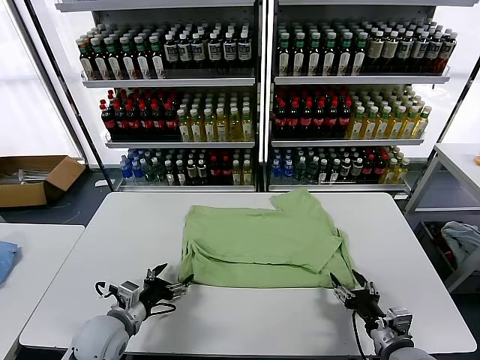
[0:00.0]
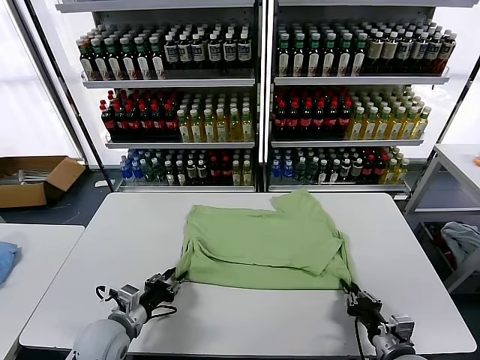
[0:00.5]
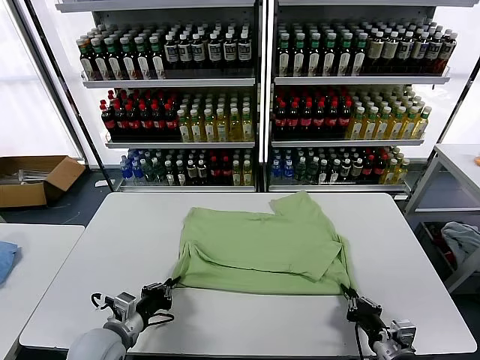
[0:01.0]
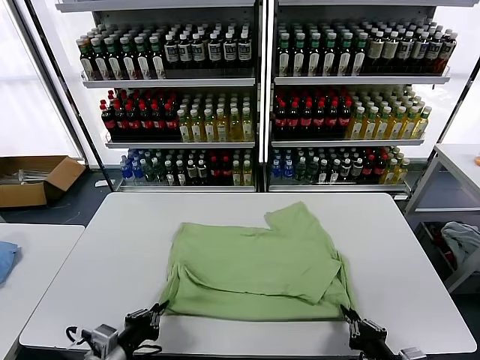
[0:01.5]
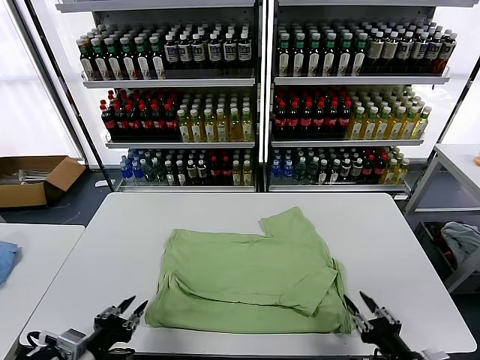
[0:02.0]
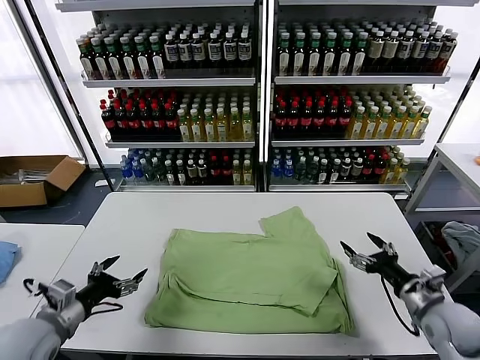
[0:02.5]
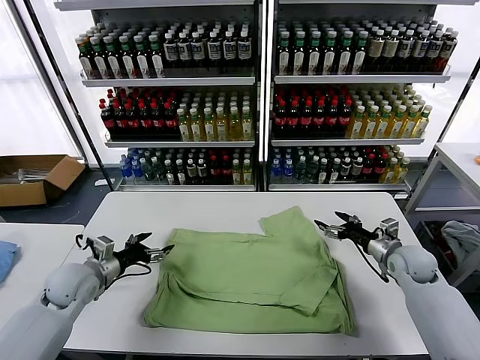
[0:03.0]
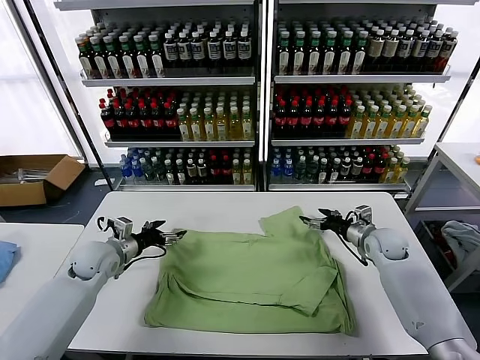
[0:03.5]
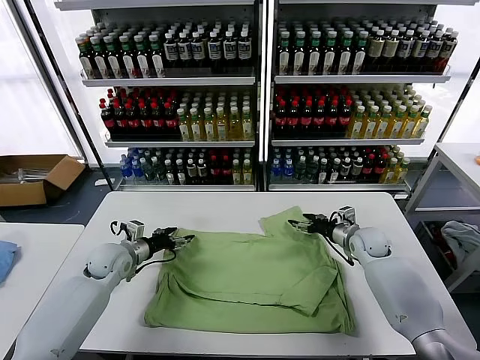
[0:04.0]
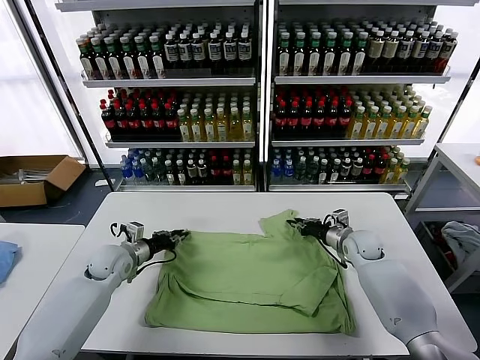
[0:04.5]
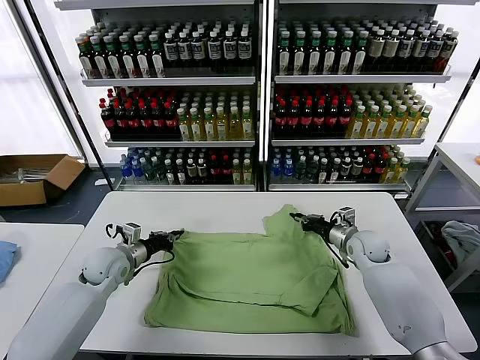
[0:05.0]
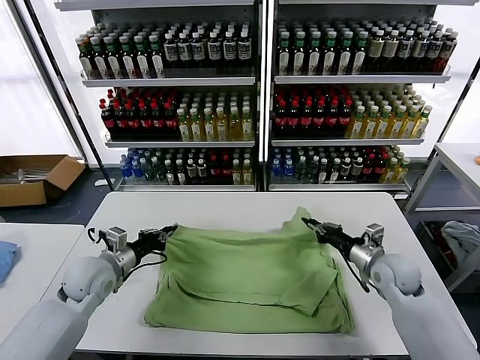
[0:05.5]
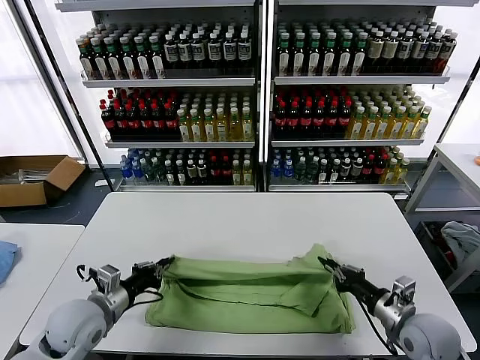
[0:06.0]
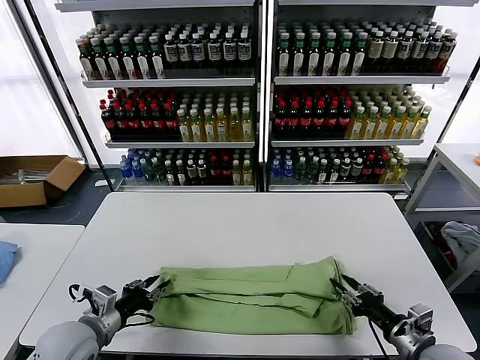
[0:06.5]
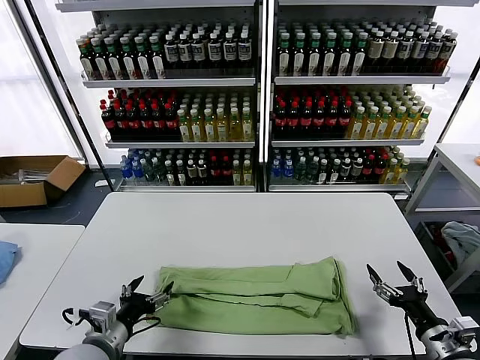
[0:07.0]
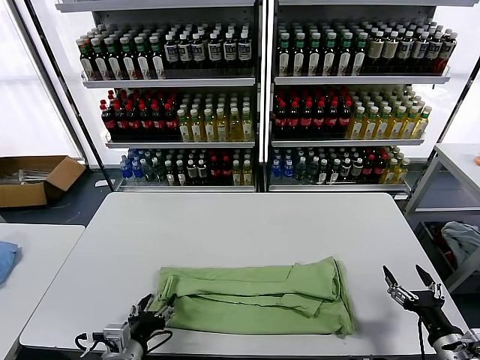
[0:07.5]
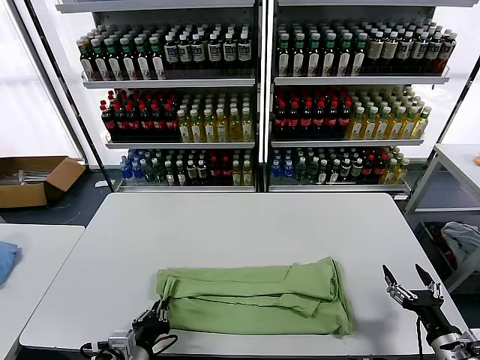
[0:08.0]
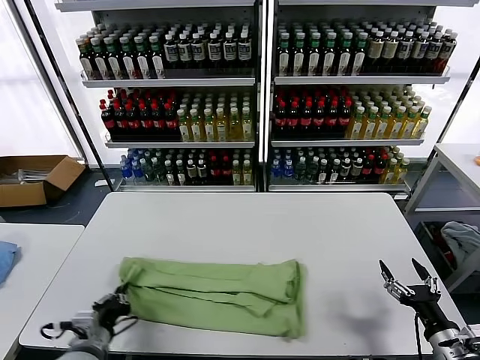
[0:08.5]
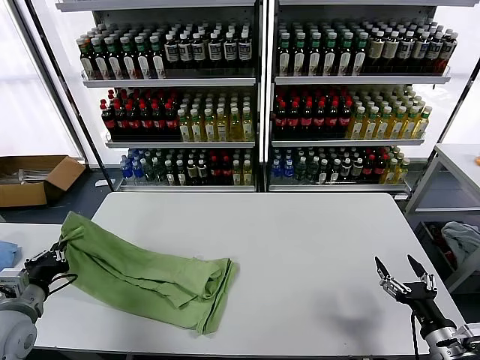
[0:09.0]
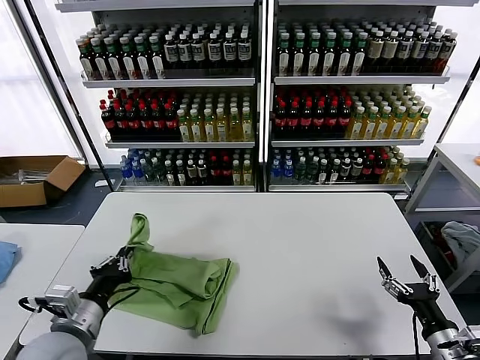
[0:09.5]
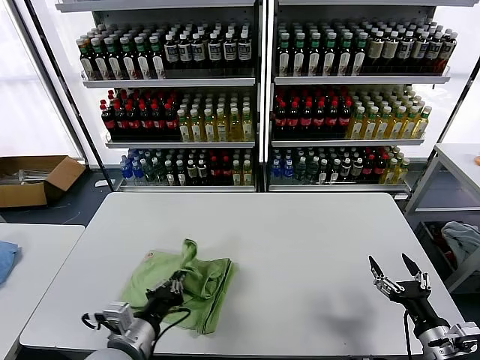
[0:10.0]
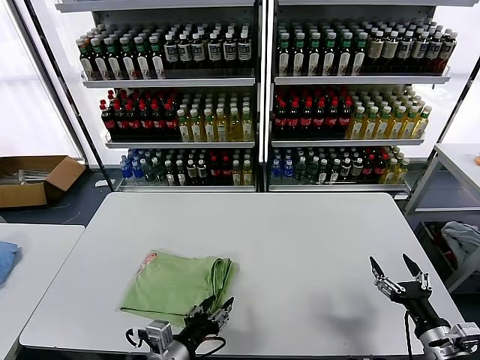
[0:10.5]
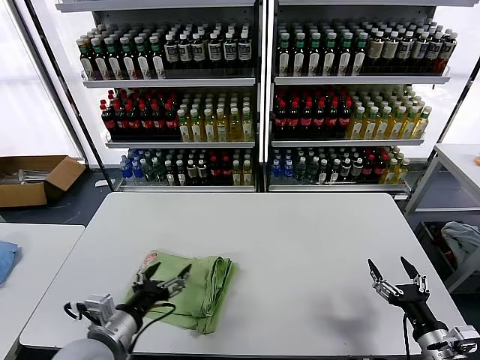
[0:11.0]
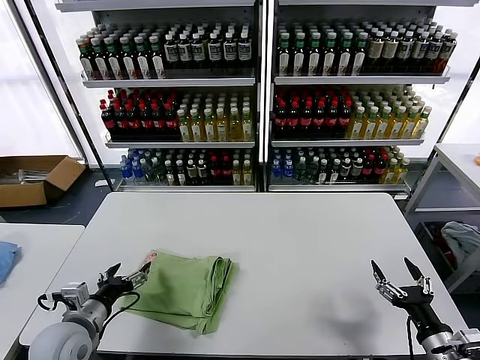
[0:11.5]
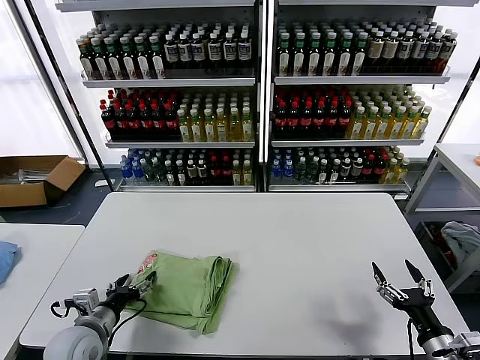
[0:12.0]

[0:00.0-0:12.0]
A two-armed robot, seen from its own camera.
Task of the whole recording: fold and organize the clothes.
Step, 0:00.0 to 0:02.0: Drag the clothes downward with both gripper.
Step, 0:02.5 to 0:04.5: use both grippers simultaneously to clamp the upper edge of the clothing fabric.
Step, 0:05.0 to 0:06.5: use both grippers to drag the upper edge of the fabric backward and fold it over the lower edge.
Step, 0:07.0 to 0:08.0: use the left gripper to clamp the left edge of the fabric.
Step, 0:08.5 to 0:10.5: use the left gripper to drag the left edge of the fabric to the left and folds it over the right edge.
0:00.0 to 0:02.0: The two grippers go roughly 10 cm backward and upward. The left gripper closes up. Meanwhile the right gripper closes, then reopens.
0:02.0 to 0:04.0: Both grippers move forward, approximately 35 cm. The left gripper opens up.
0:04.0 to 0:06.0: The left gripper heads backward, covering roughly 15 cm, and closes; the right gripper goes approximately 25 cm backward, and closes up.
0:06.0 to 0:08.0: The right gripper travels backward and to the right by approximately 10 cm, and opens up, while the left gripper heads backward, to the right and downward, covering some 15 cm, and opens and closes again.
0:08.0 to 0:10.0: The left gripper goes approximately 5 cm upward, and reaches roughly 20 cm to the left, then returns.
0:10.0 to 0:12.0: The left gripper heads to the left, downward and forward, covering some 15 cm, and opens.

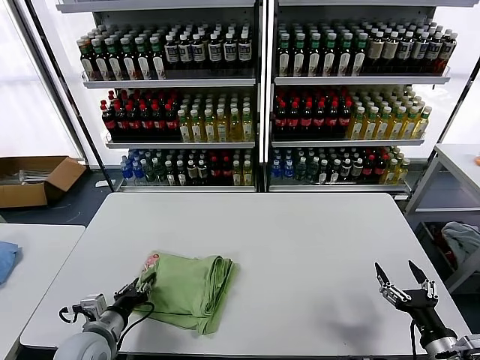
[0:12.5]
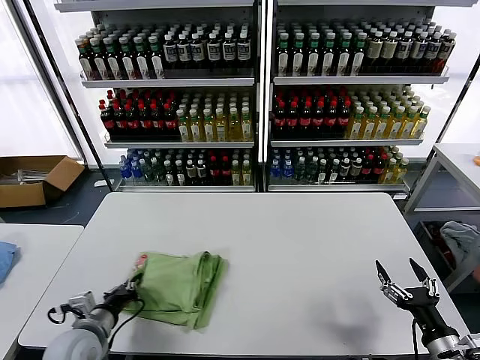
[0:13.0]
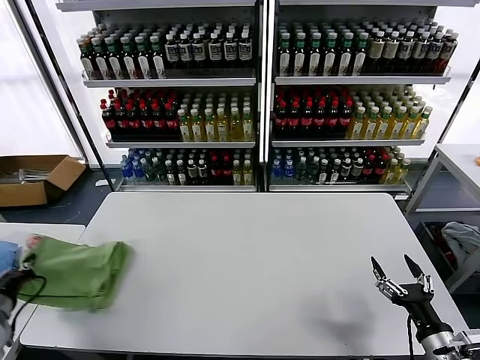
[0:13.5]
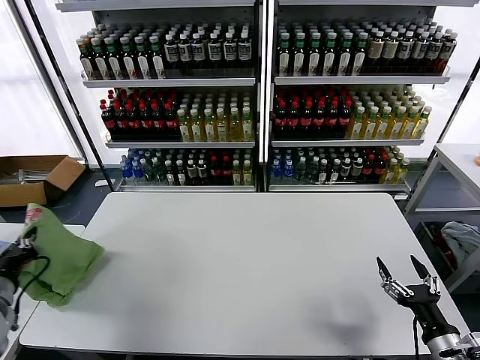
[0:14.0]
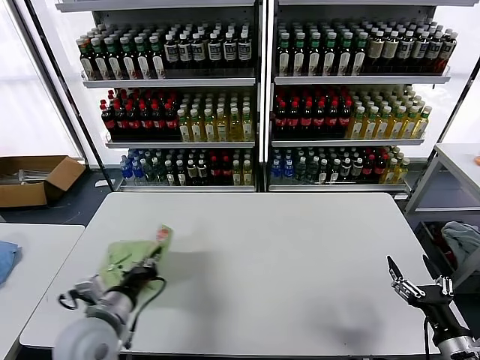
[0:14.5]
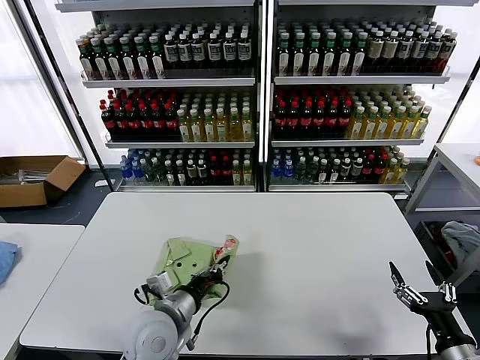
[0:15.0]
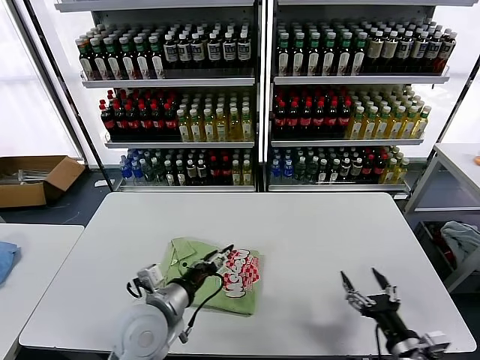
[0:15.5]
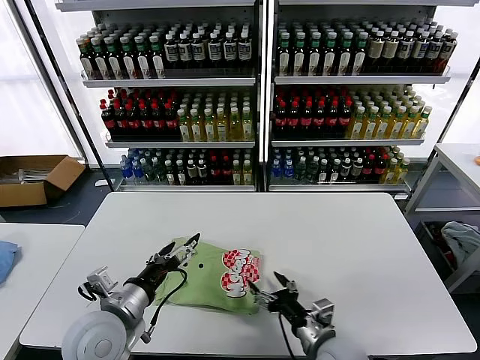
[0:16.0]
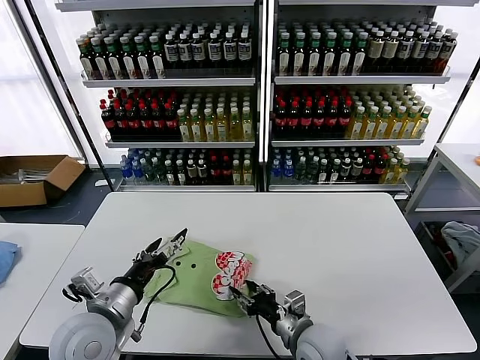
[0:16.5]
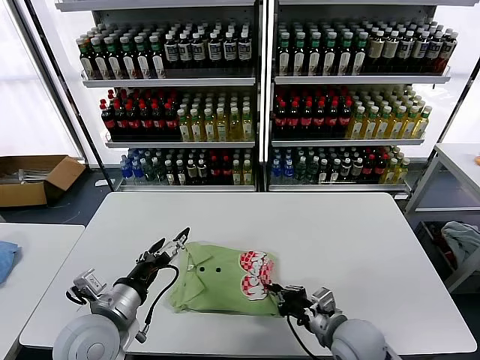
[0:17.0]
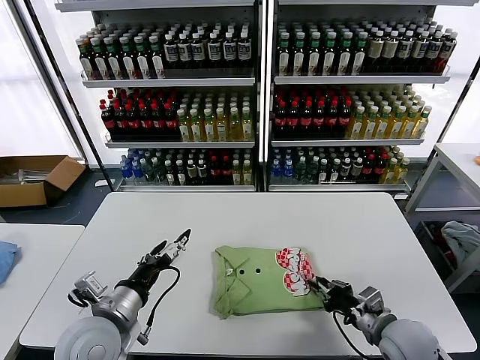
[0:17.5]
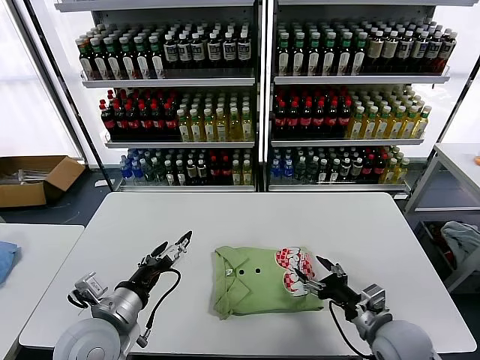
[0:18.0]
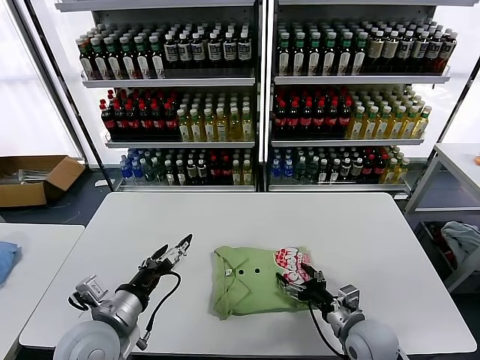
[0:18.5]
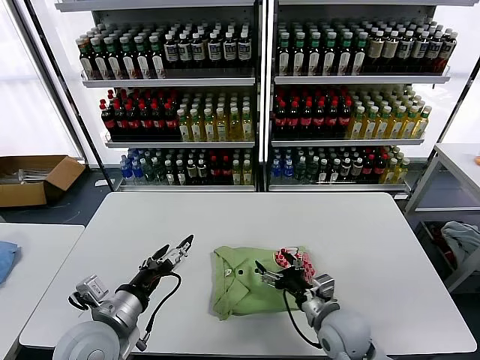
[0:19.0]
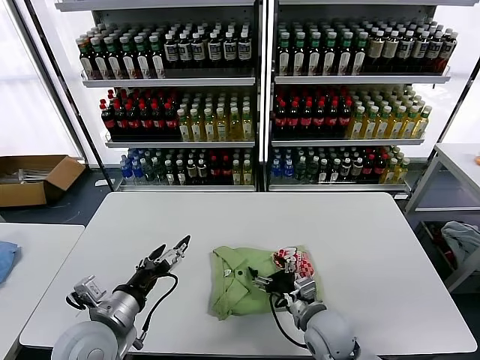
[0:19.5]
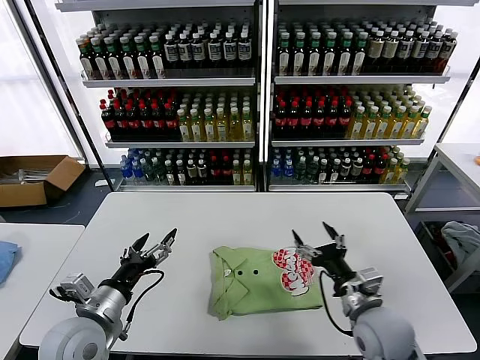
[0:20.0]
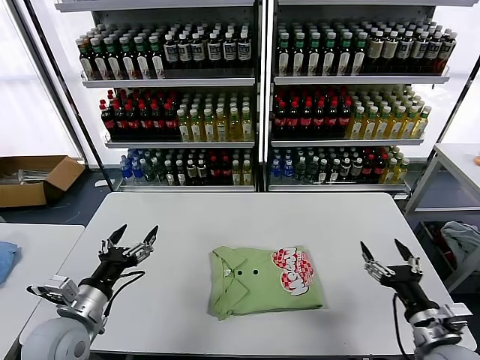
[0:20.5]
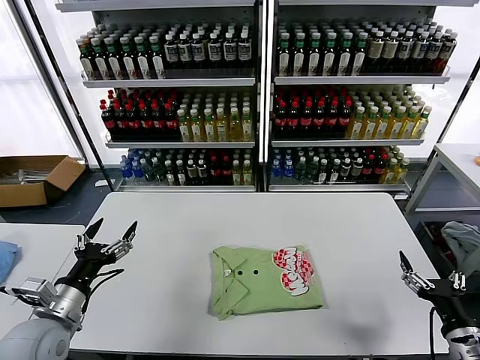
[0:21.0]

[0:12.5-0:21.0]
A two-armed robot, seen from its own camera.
Task of the whole recording: fold and organize the clothes.
Step, 0:12.5 to 0:15.5: Flip the folded clothes over with left gripper.
Step, 0:16.0 to 0:19.5: Drag the clothes to the center of the table.
0:12.5 to 0:14.5: The left gripper is displaced upward by approximately 10 cm, and goes to the left and returns, some 15 cm each way.
0:14.5 to 0:16.5: The left gripper goes to the right and returns, about 10 cm each way, and opens, while the right gripper travels to the left and forward by about 25 cm, and closes up.
0:16.5 to 0:19.0: The right gripper goes some 5 cm to the right, and opens up.
0:19.0 to 0:21.0: The left gripper moves to the left, roughly 10 cm. Meanwhile the right gripper is displaced to the right and backward by approximately 20 cm.
